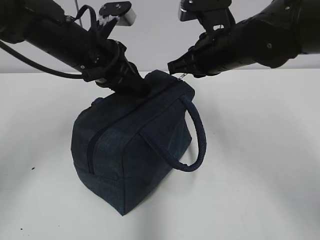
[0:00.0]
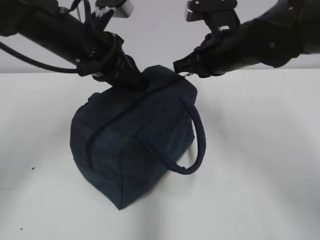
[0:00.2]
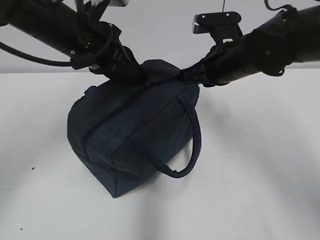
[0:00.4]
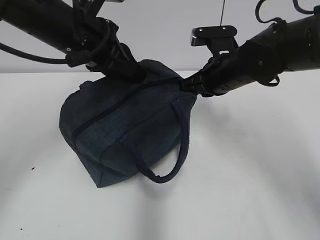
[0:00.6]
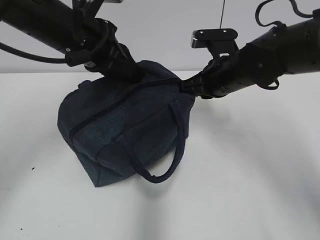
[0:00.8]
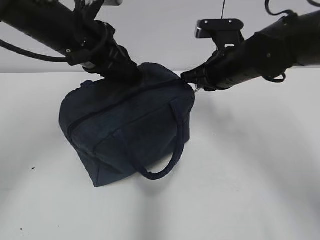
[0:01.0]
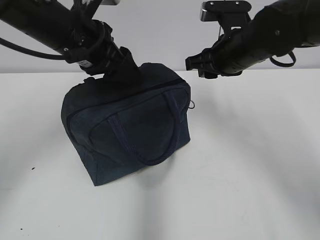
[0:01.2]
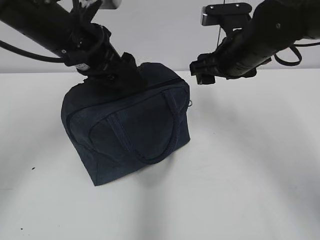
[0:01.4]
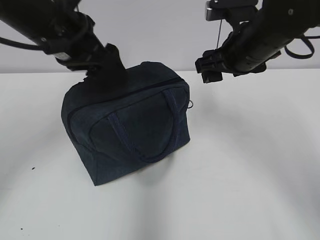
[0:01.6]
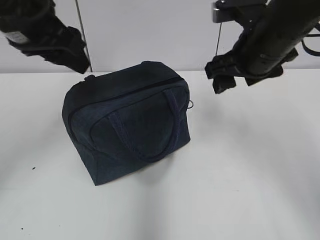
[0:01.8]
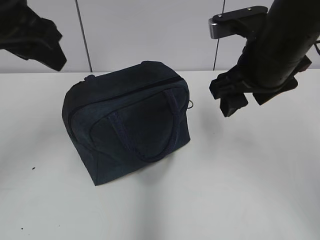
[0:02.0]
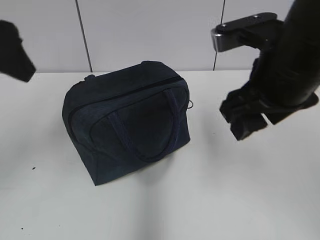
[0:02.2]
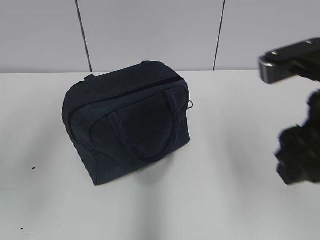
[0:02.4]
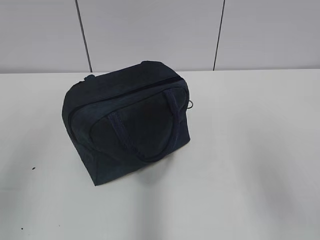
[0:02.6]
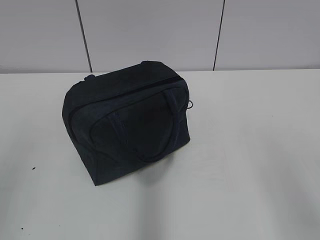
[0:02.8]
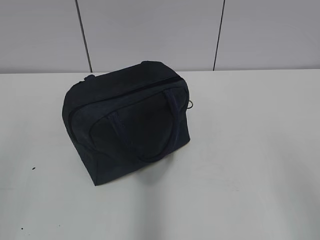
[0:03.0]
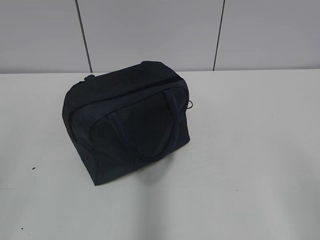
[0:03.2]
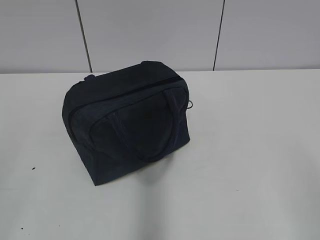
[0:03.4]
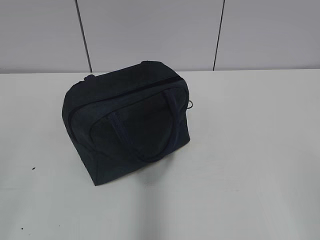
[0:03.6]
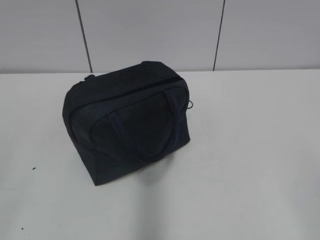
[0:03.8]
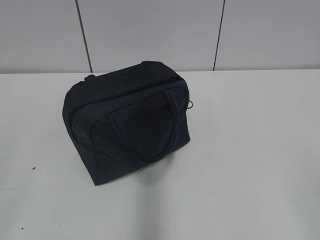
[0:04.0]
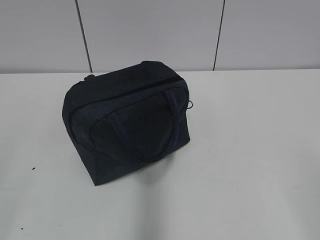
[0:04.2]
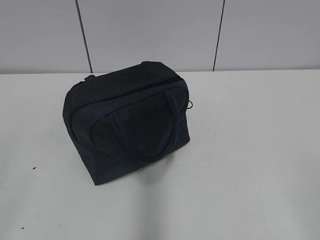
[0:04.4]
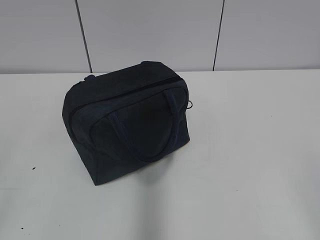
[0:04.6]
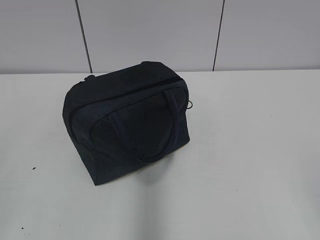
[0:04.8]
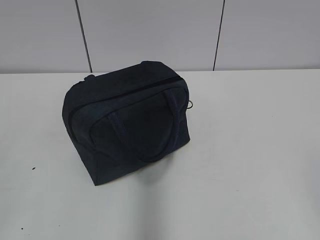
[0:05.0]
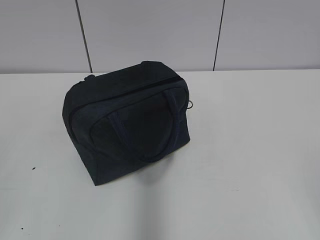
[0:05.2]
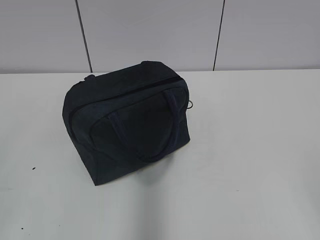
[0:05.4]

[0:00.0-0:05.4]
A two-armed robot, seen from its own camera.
0:00.0 to 0:01.4: The left gripper opens up; the right gripper opens.
0:01.4 to 0:02.8: The right gripper goes about 30 cm backward. The left gripper is displaced backward and to the left by about 35 cm.
0:02.8 to 0:04.0: The right gripper travels backward and to the right by roughly 10 cm.
